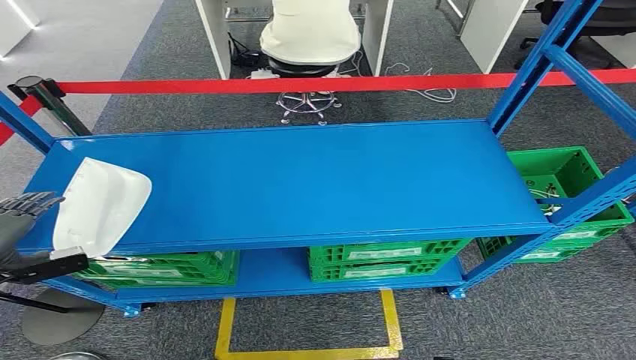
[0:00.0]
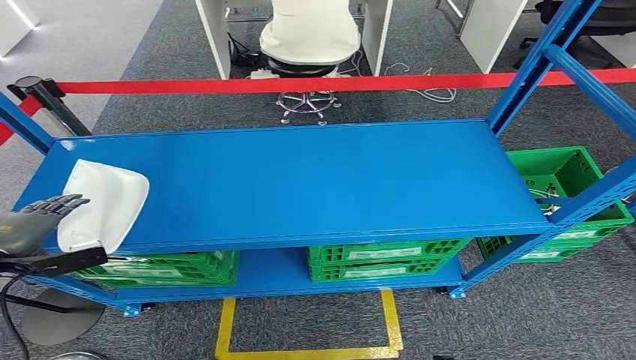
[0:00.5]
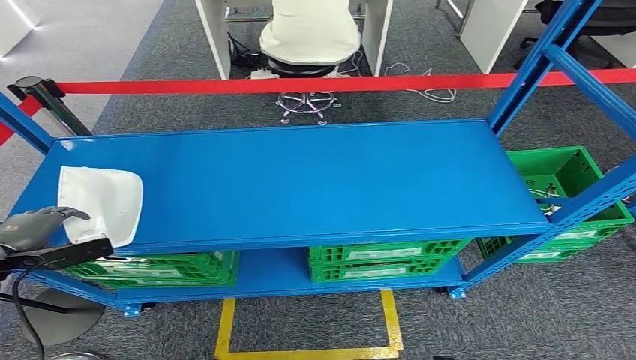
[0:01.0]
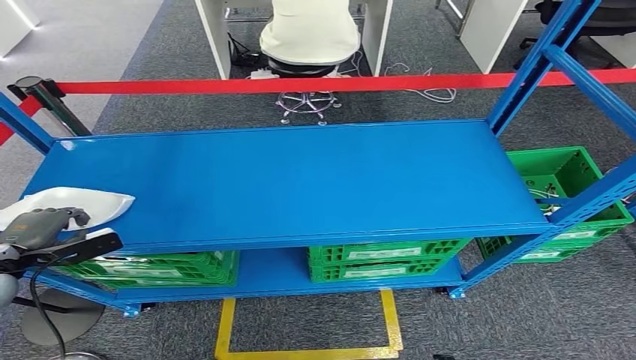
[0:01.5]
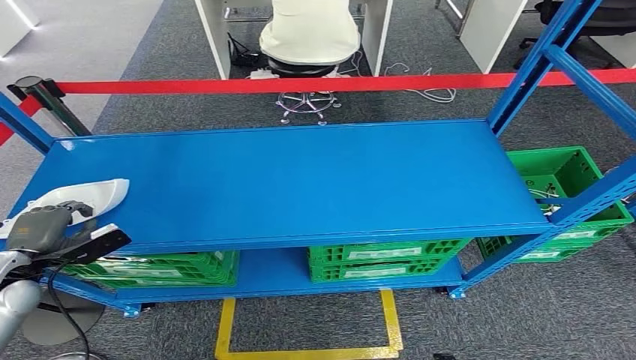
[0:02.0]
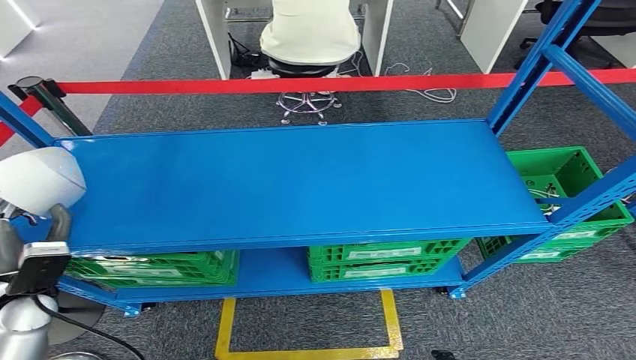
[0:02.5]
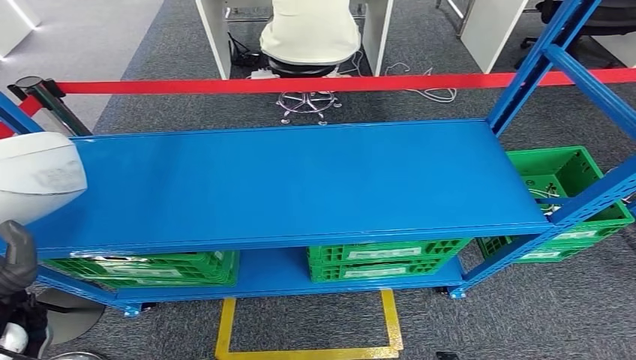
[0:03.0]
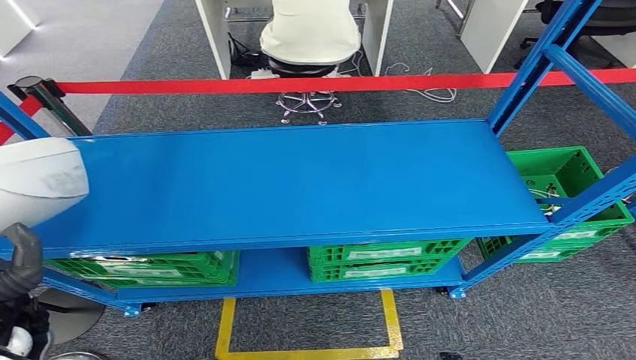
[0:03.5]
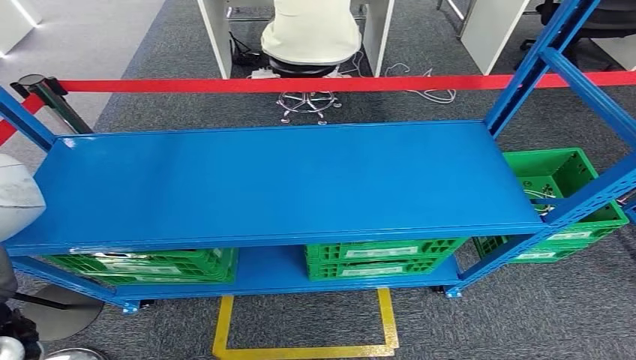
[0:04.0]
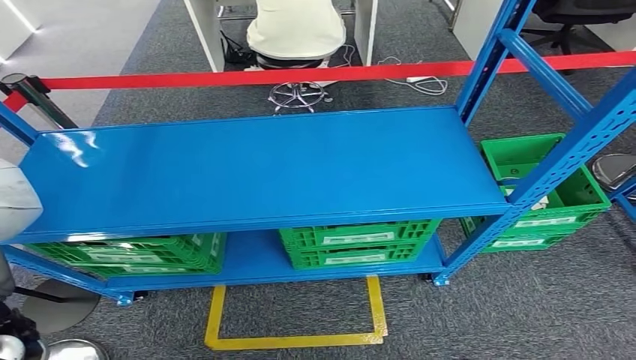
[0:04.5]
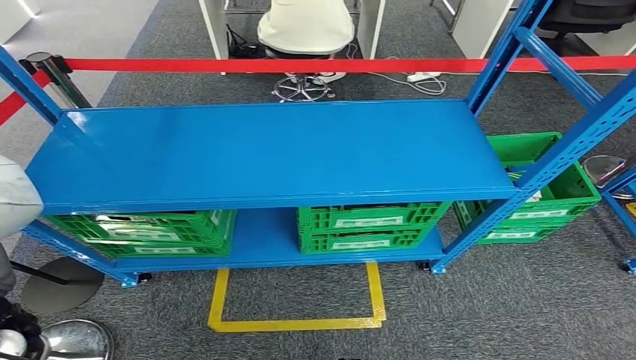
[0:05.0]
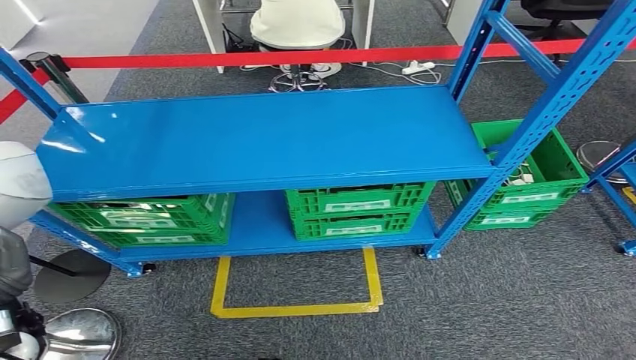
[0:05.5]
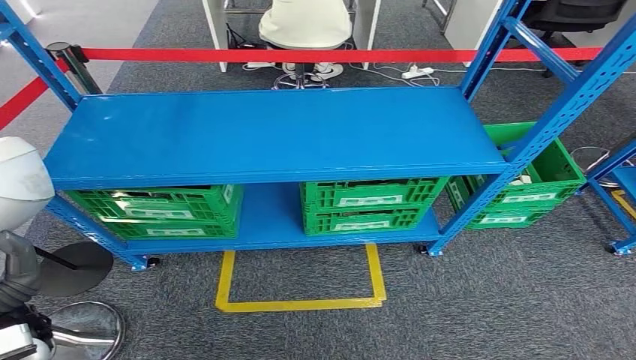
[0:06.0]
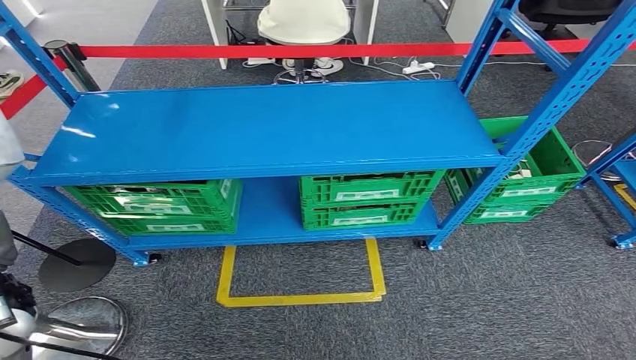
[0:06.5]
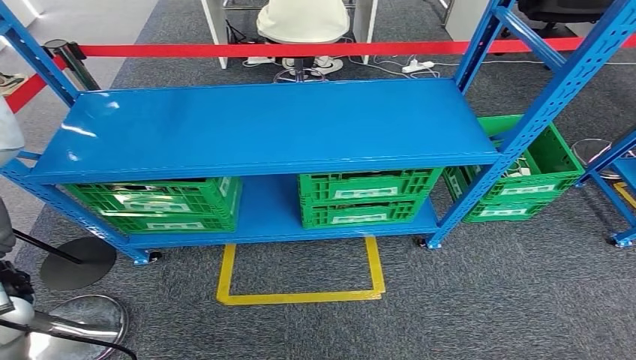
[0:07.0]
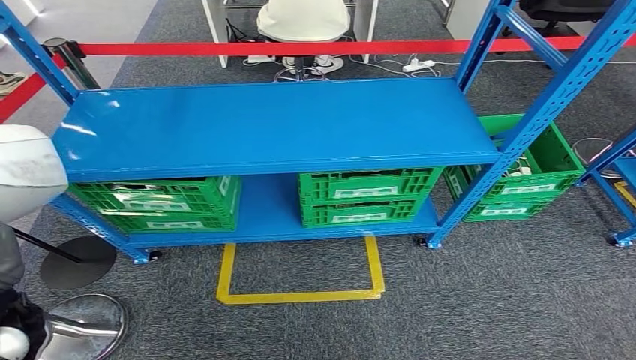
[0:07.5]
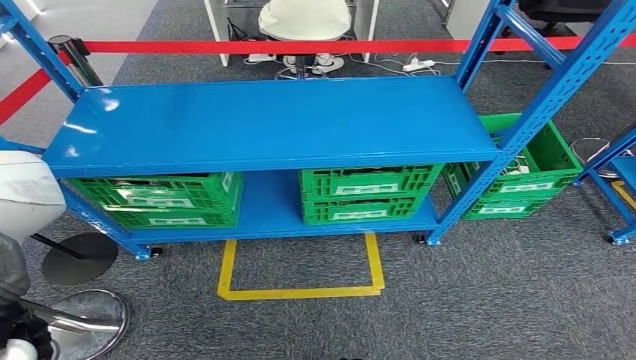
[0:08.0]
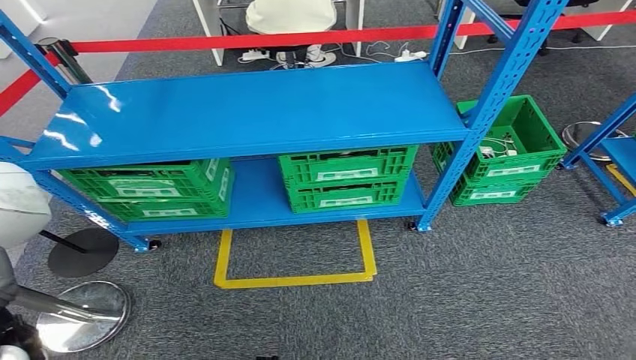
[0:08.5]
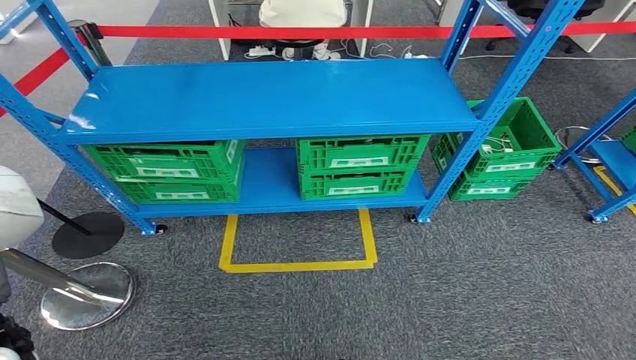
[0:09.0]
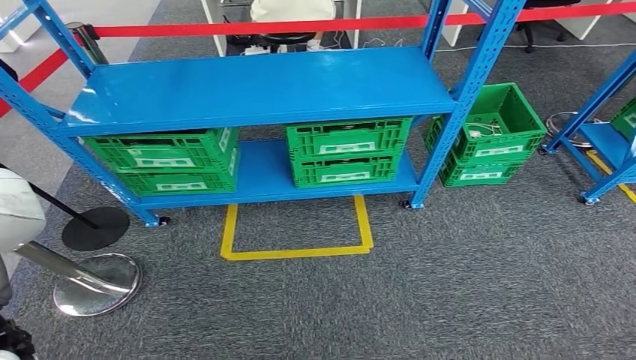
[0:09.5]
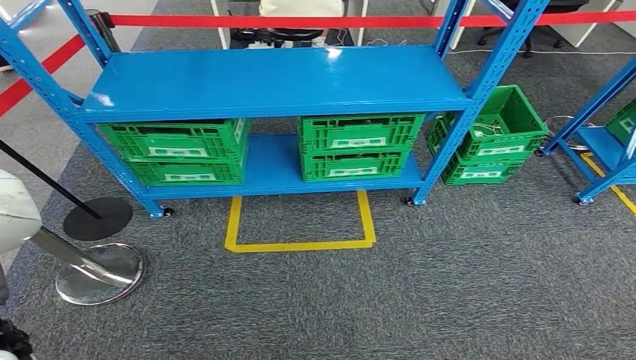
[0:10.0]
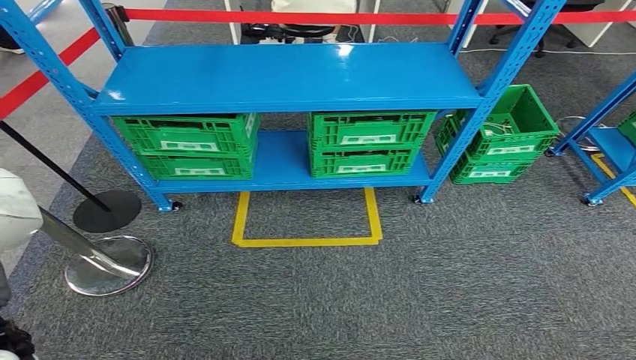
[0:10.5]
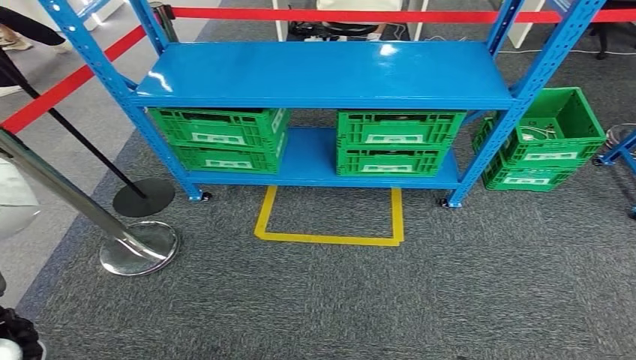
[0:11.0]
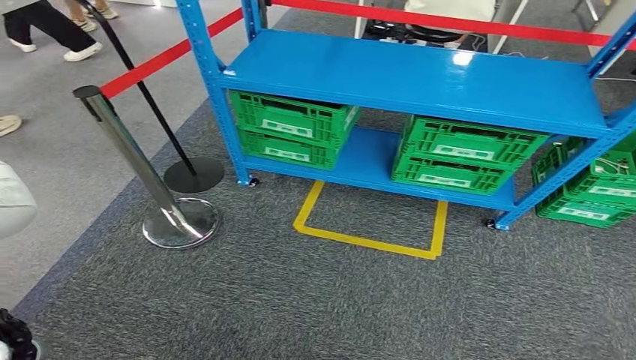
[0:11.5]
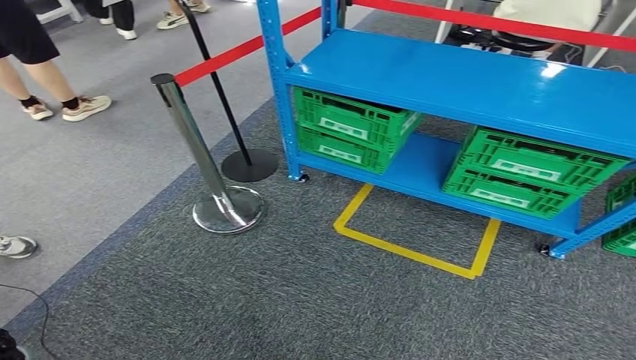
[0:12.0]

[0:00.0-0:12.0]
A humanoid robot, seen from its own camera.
Step, 0:00.0 to 0:05.0: Pick up the small component from the shelf.
0:02.0 to 0:04.0: The left hand shifts approximately 15 cm backward, to the right and upward.

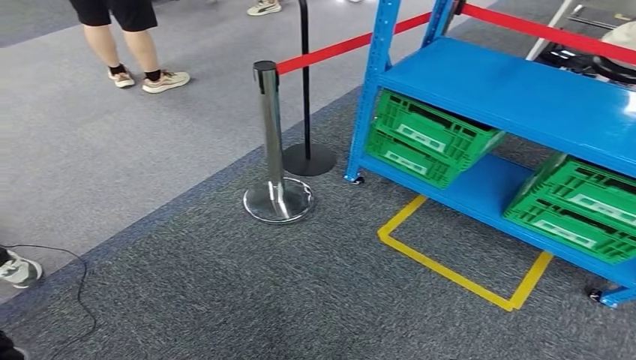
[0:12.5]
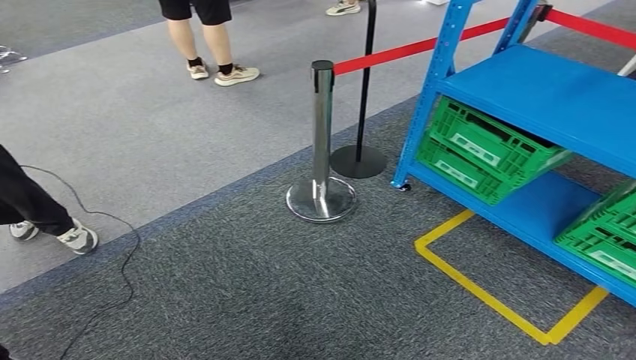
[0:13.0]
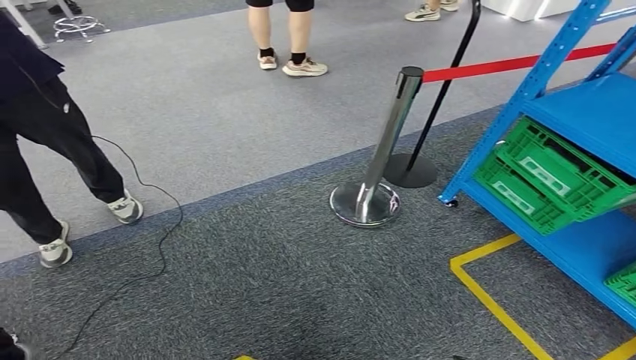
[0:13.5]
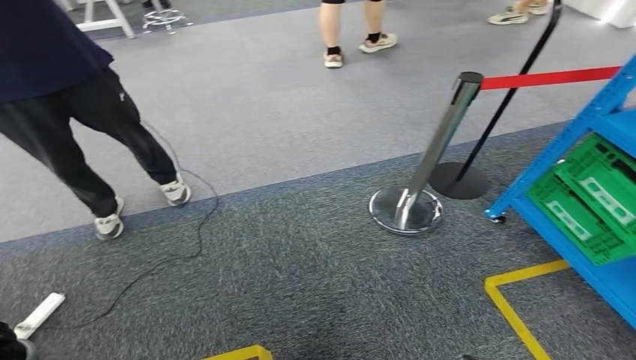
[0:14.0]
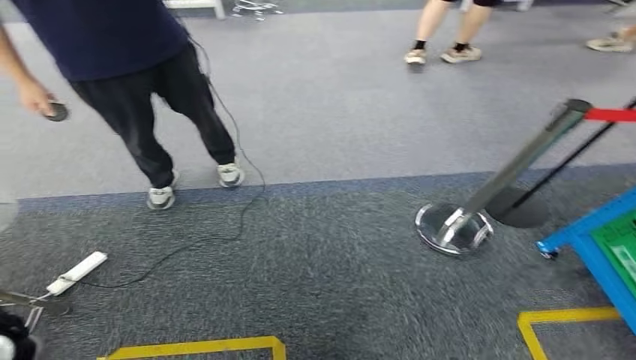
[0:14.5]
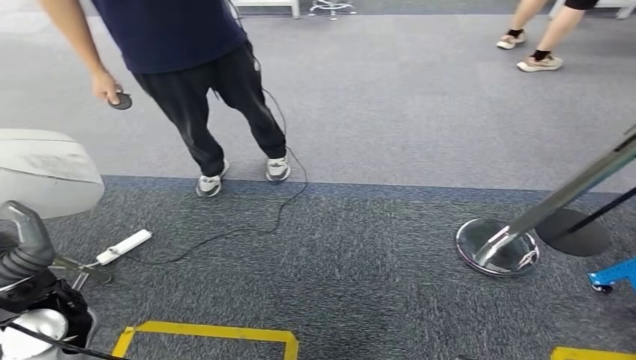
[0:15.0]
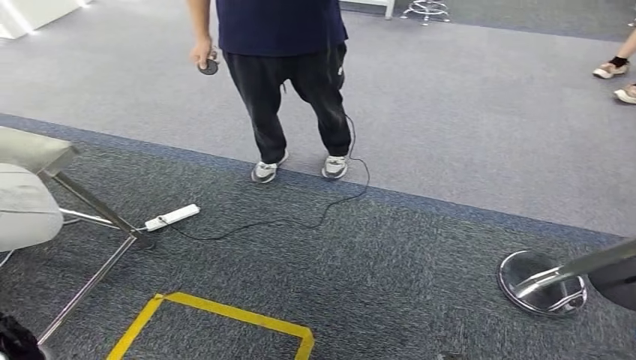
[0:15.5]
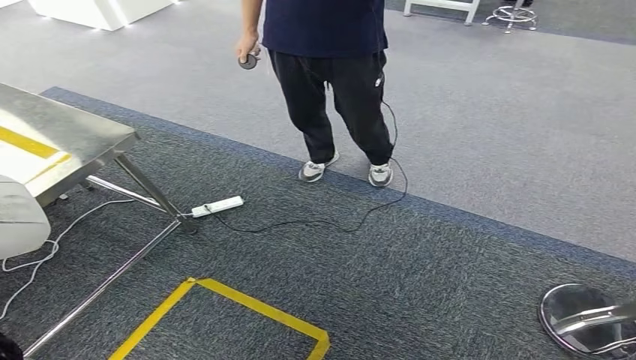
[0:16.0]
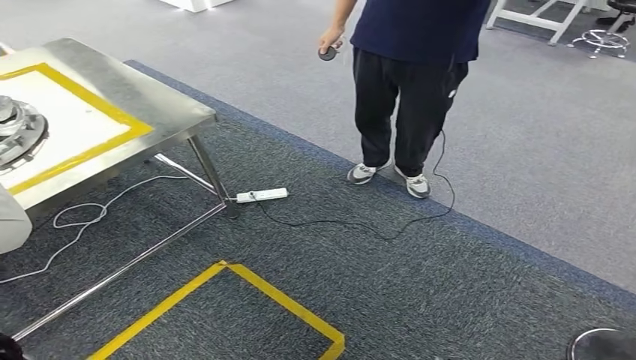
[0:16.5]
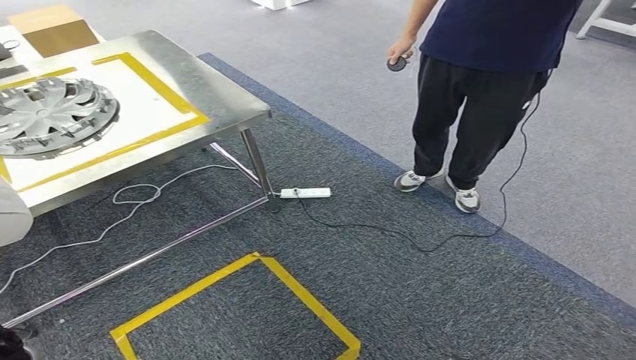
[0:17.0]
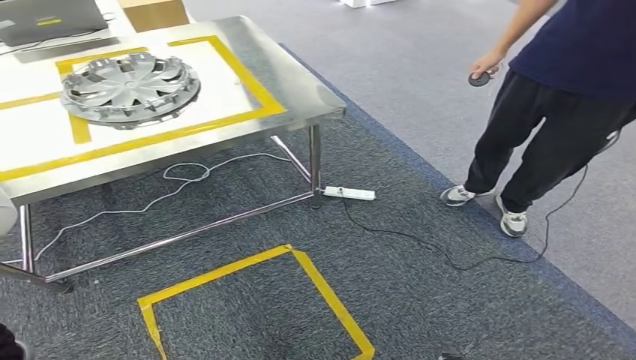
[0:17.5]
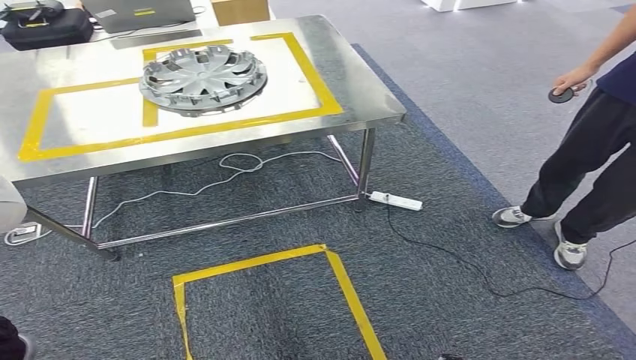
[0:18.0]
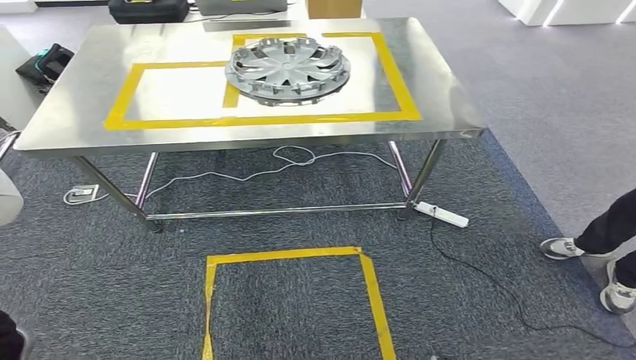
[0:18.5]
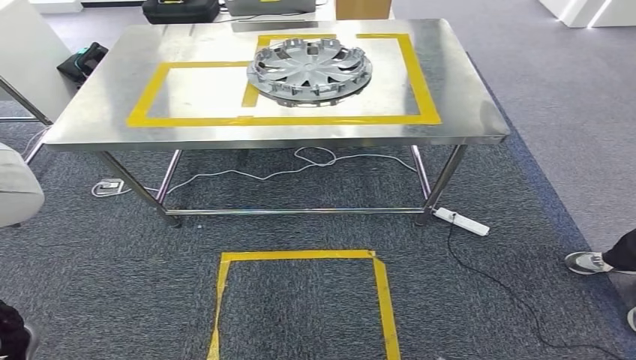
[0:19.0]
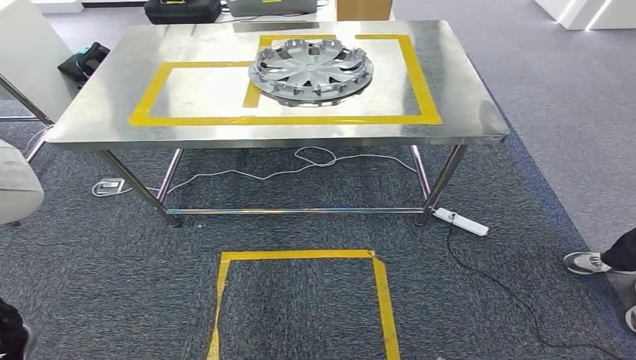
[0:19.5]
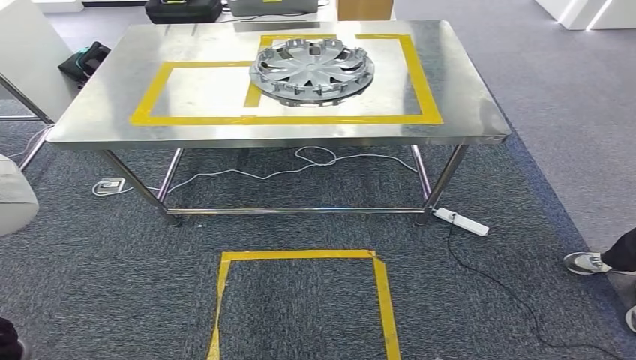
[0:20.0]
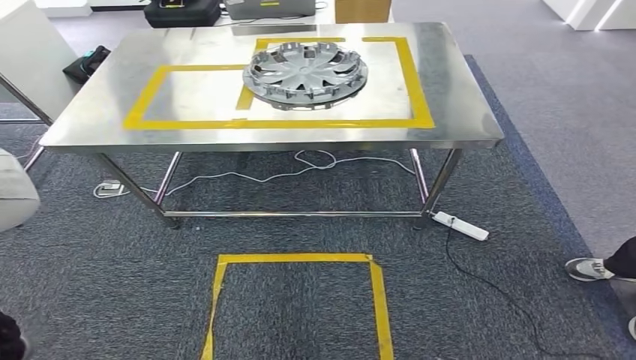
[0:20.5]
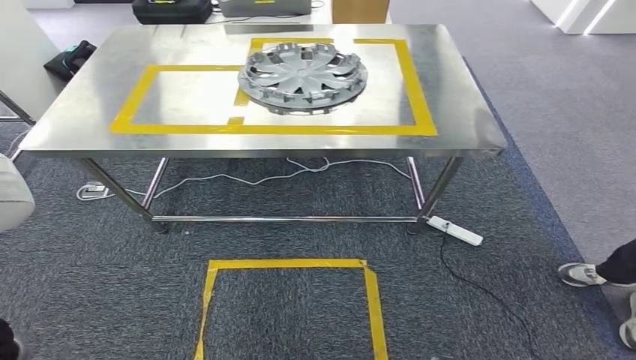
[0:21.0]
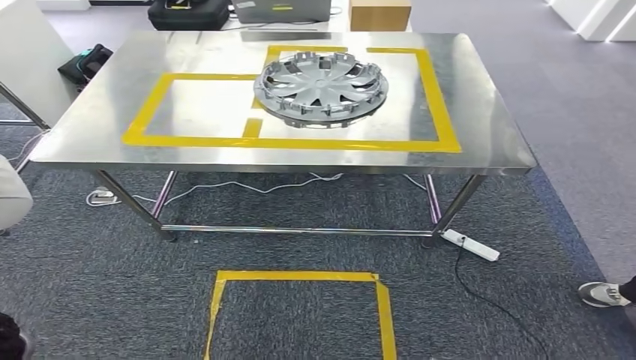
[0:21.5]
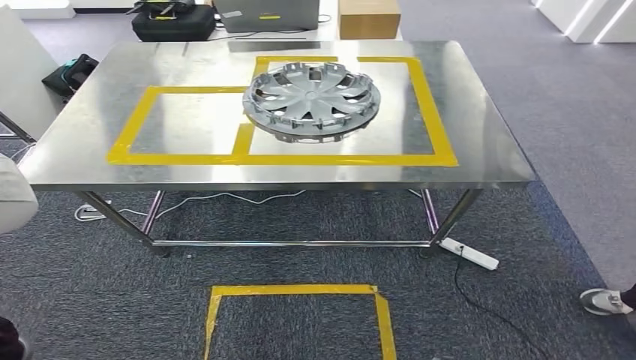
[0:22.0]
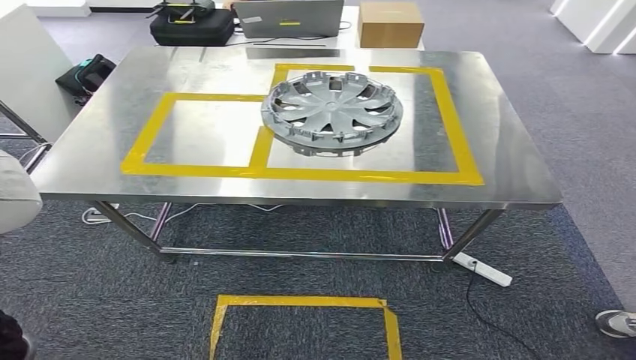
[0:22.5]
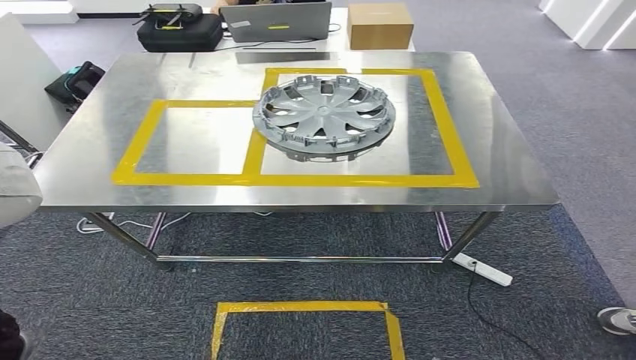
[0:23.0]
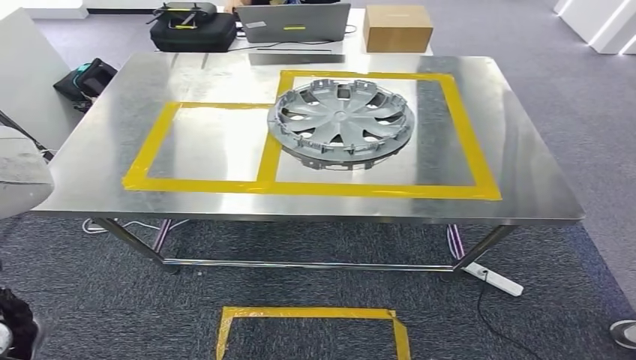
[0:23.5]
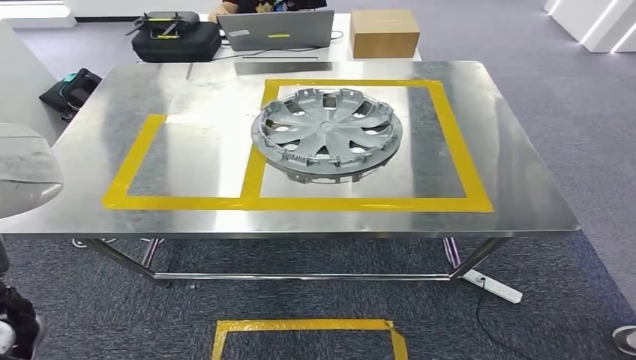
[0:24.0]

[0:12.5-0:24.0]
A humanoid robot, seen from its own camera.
Step, 0:12.5 to 0:19.5: Bring the small component to the front of the workbench.
